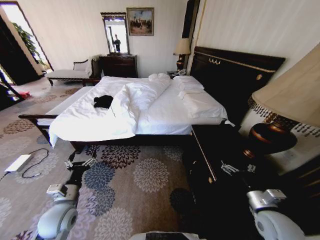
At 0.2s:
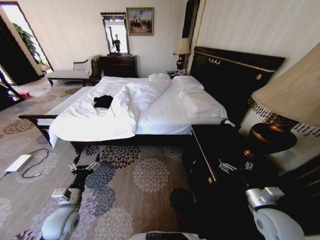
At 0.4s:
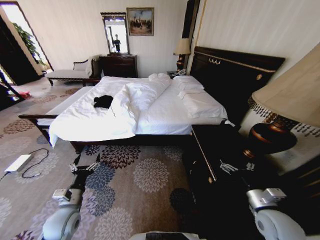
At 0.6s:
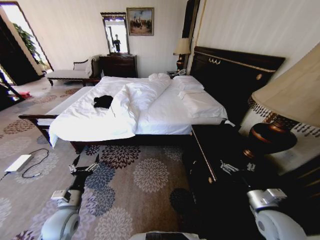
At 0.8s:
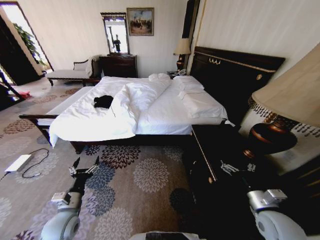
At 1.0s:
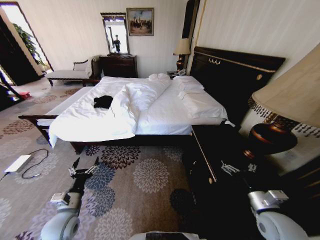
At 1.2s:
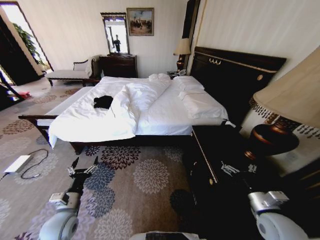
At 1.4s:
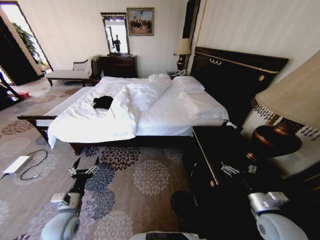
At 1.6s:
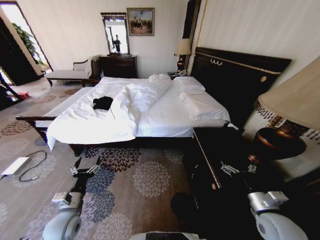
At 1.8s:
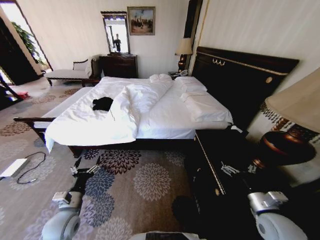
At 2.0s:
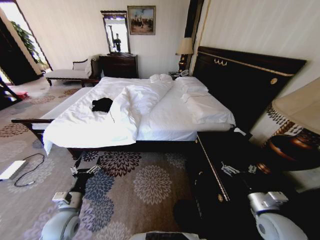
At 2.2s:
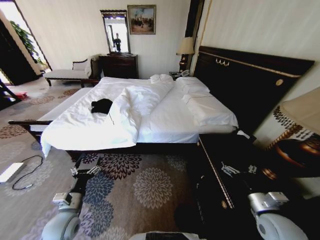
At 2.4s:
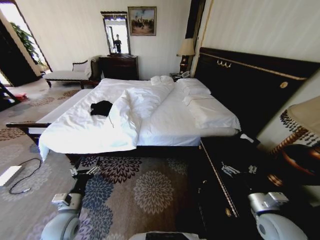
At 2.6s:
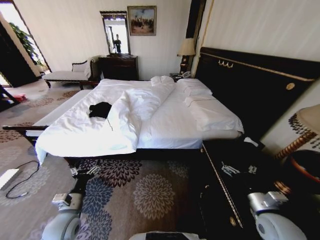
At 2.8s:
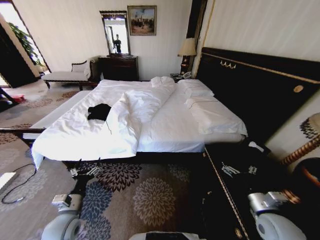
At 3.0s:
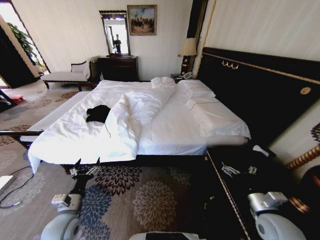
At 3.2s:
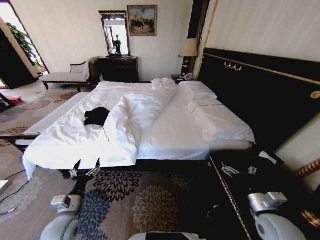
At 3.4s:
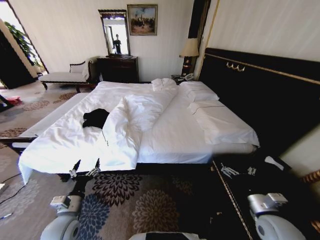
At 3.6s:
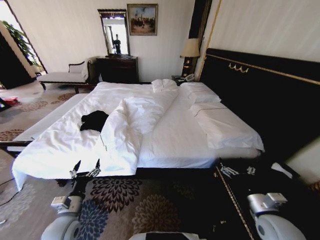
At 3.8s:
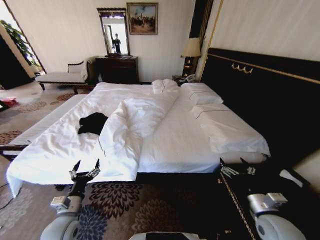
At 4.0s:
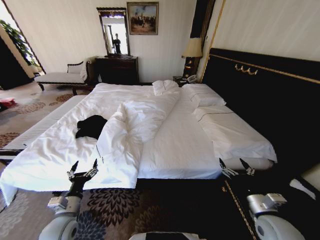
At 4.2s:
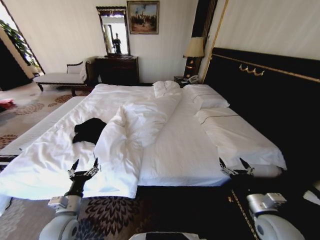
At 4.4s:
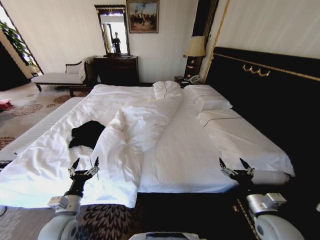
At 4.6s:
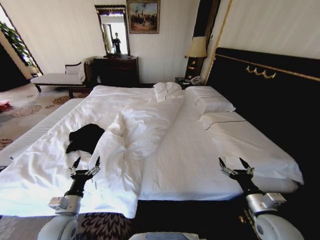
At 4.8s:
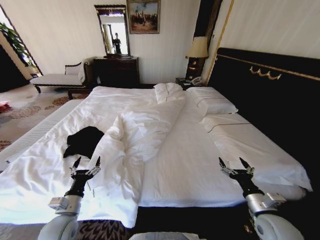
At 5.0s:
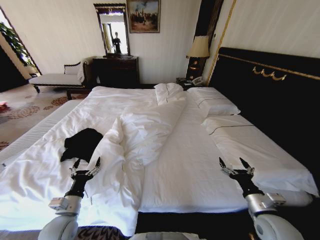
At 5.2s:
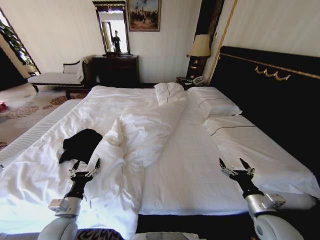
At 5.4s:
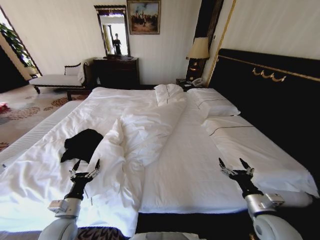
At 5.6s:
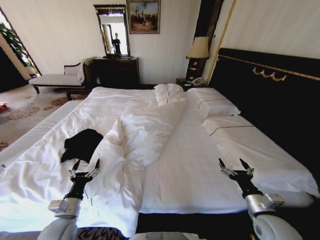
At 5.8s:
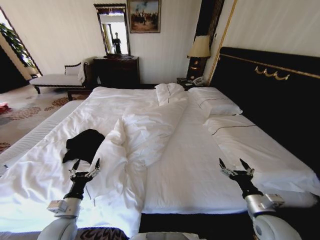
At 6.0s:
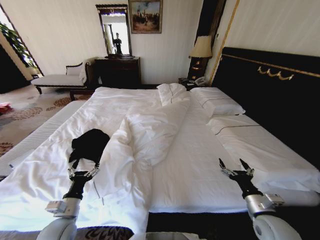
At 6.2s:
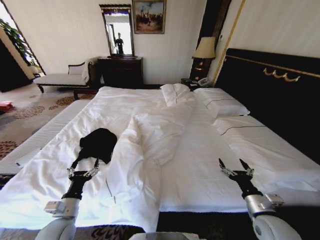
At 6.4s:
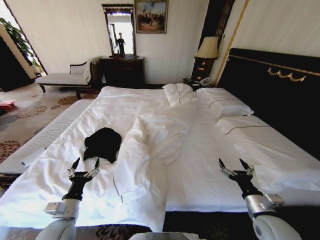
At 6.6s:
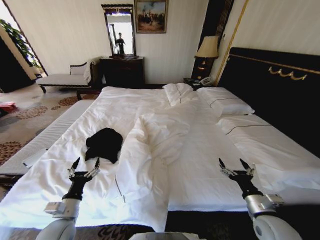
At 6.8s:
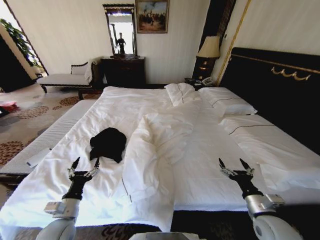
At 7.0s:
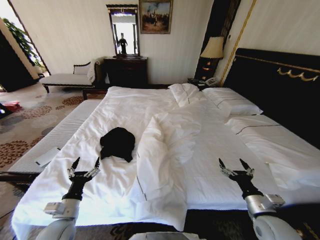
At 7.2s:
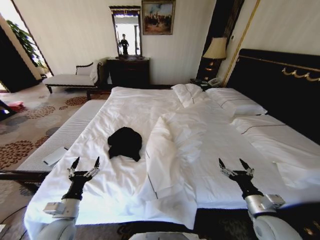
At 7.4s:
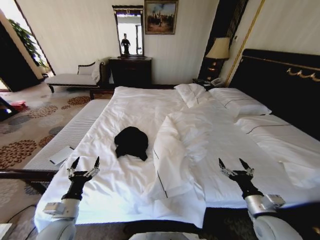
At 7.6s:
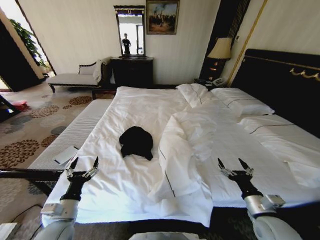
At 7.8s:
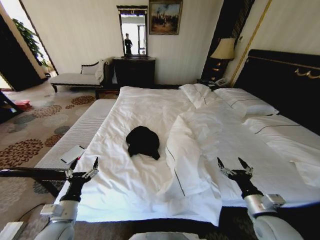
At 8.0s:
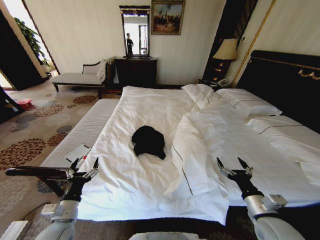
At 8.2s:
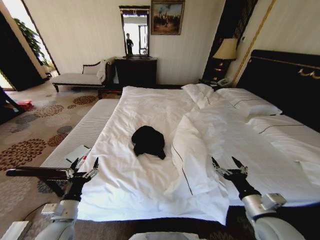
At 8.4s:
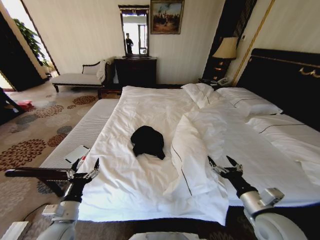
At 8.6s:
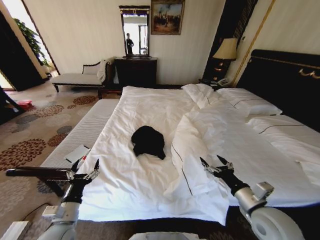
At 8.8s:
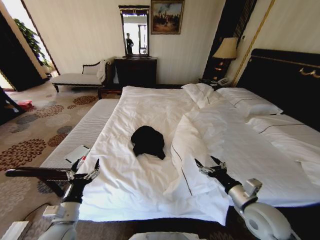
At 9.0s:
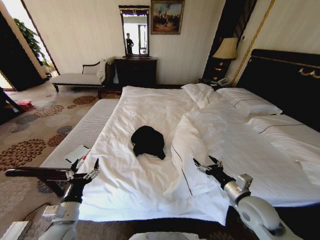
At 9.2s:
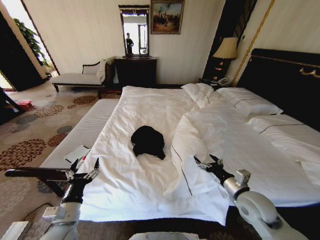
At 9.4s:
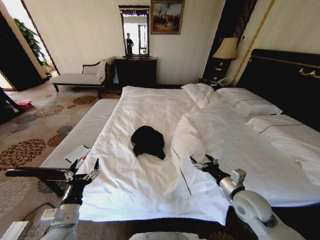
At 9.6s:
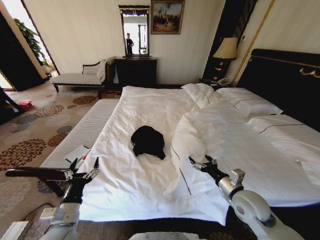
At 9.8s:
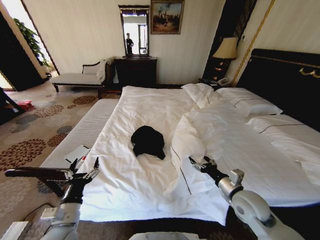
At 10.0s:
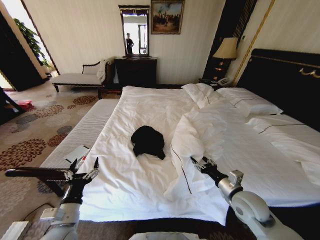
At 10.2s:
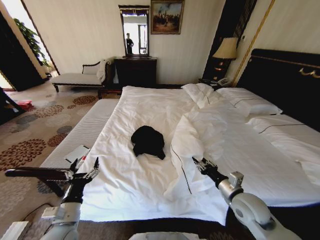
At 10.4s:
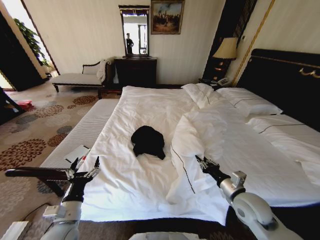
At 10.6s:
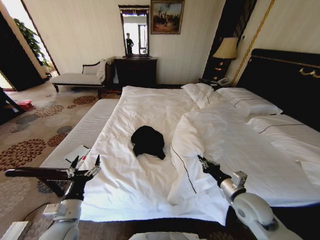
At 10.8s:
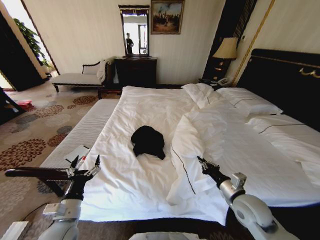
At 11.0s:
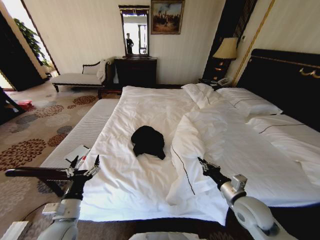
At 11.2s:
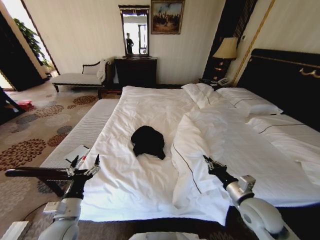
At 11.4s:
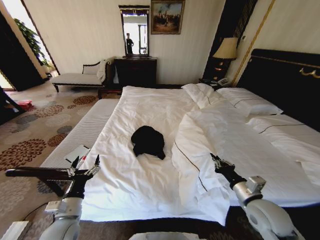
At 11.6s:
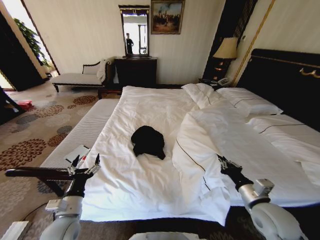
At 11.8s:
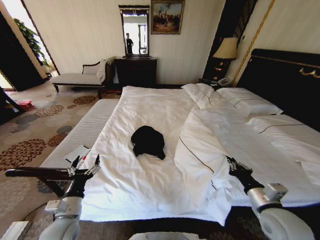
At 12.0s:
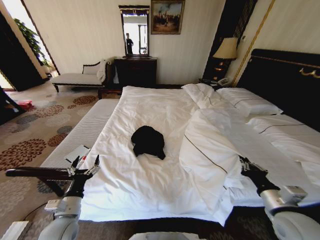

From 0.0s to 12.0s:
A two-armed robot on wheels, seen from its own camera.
Task of the whole recording: Fold the clothes on the bed.
From 7.6s to 9.0s: The right gripper travels forward by approximately 5 cm.
From 9.0s to 10.4s: The right gripper closes its fingers.
From 10.4s to 12.0s: The right gripper heads to the right and backward, covering some 10 cm.

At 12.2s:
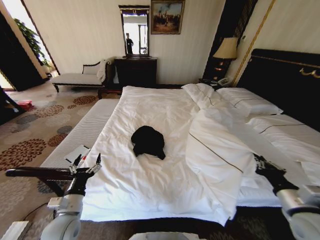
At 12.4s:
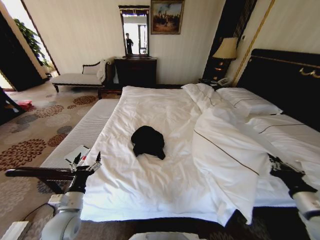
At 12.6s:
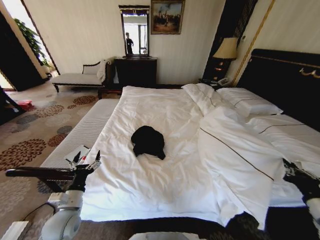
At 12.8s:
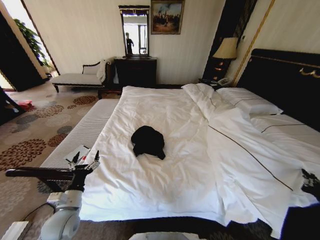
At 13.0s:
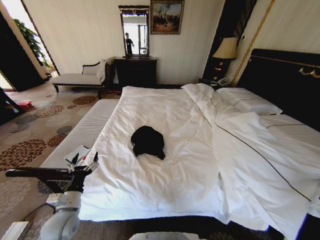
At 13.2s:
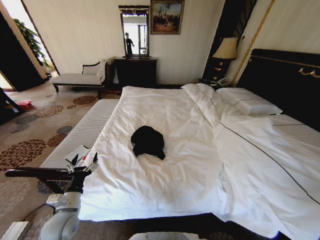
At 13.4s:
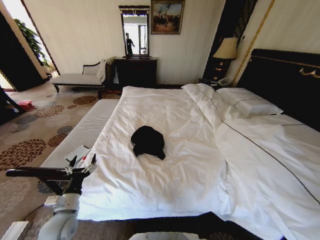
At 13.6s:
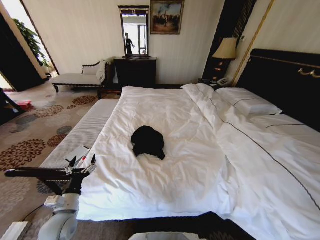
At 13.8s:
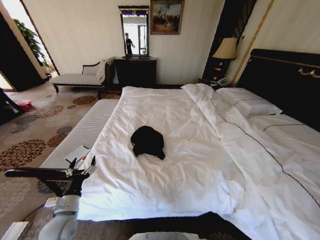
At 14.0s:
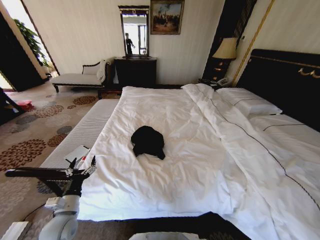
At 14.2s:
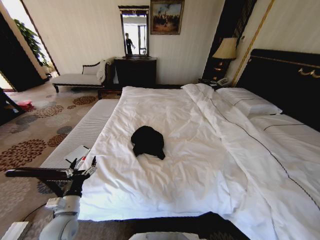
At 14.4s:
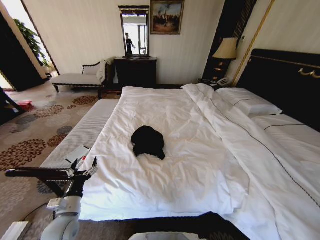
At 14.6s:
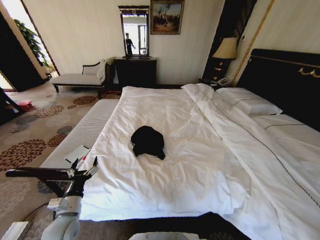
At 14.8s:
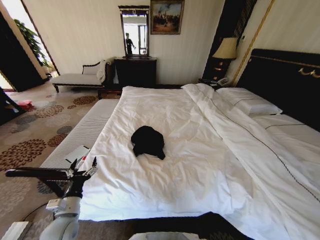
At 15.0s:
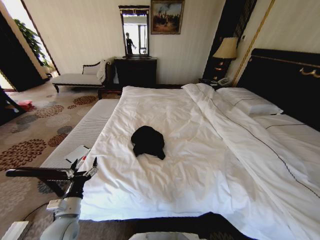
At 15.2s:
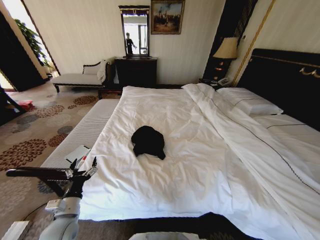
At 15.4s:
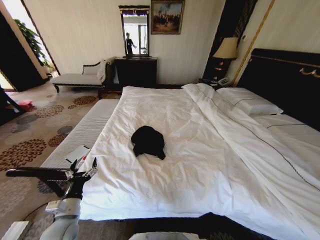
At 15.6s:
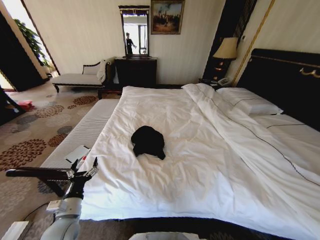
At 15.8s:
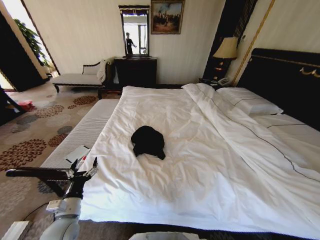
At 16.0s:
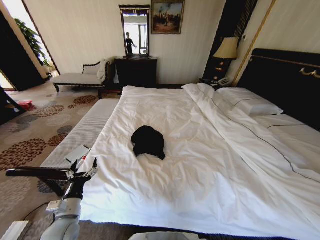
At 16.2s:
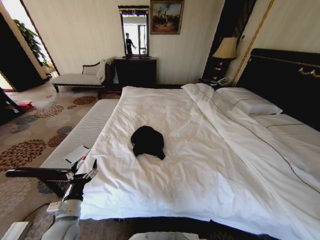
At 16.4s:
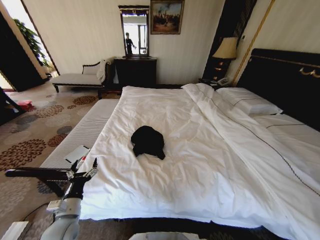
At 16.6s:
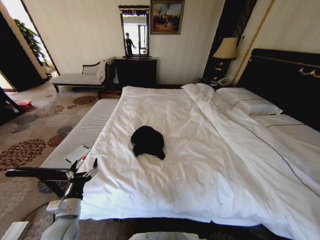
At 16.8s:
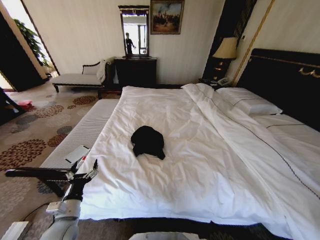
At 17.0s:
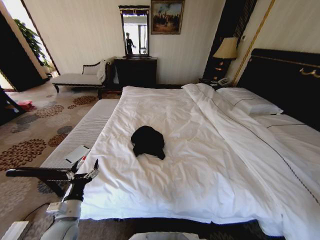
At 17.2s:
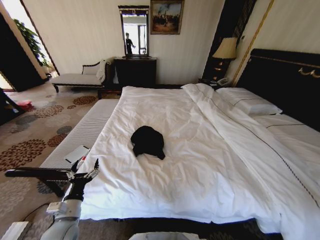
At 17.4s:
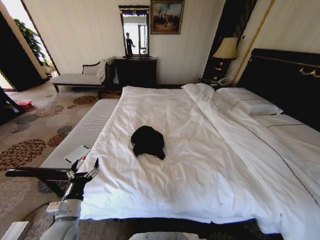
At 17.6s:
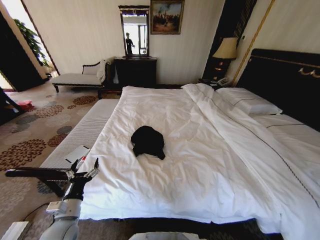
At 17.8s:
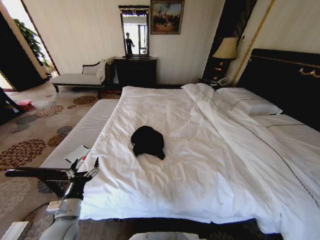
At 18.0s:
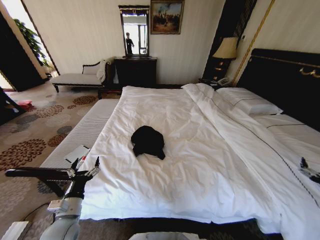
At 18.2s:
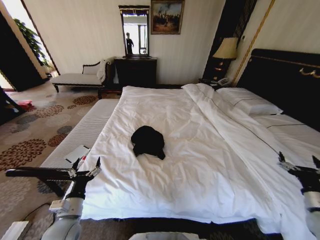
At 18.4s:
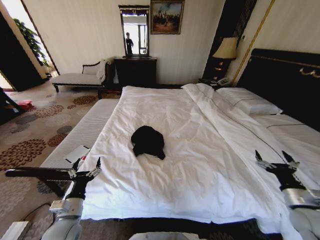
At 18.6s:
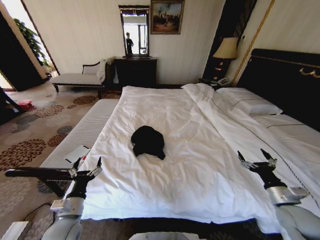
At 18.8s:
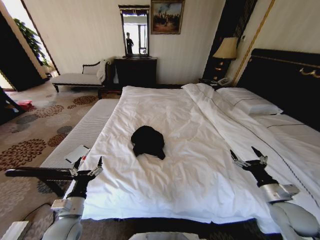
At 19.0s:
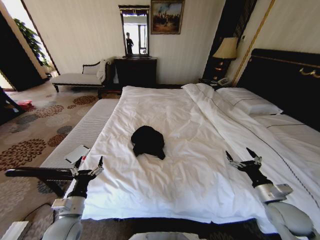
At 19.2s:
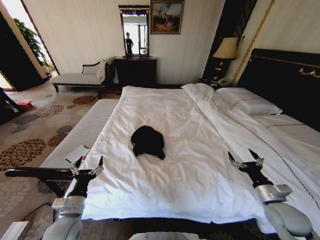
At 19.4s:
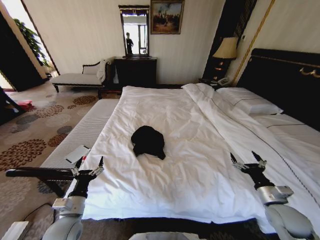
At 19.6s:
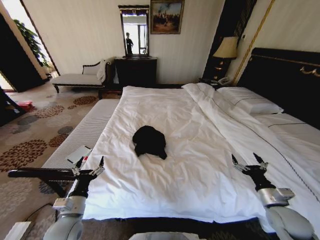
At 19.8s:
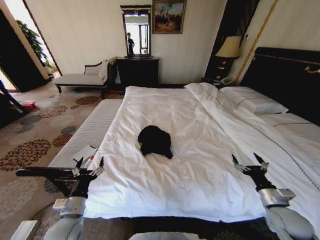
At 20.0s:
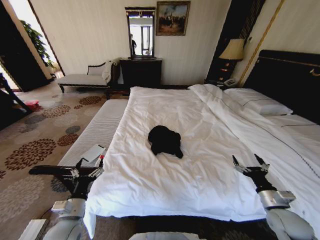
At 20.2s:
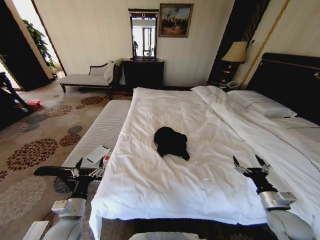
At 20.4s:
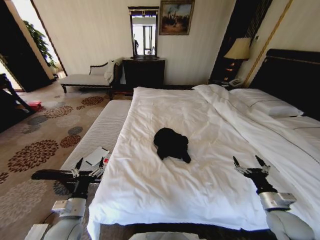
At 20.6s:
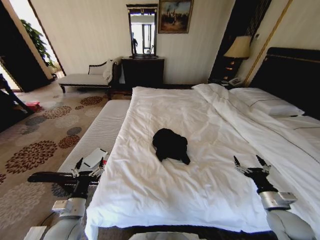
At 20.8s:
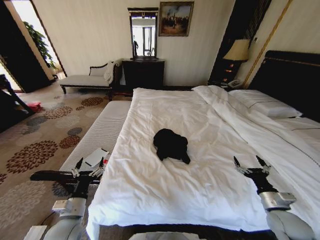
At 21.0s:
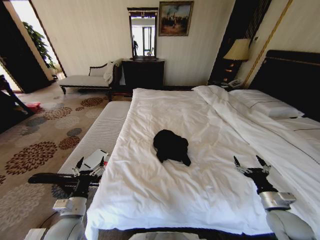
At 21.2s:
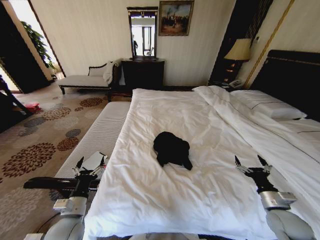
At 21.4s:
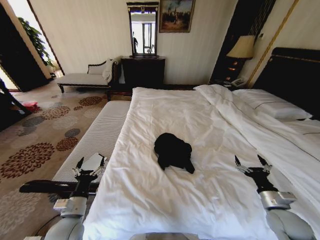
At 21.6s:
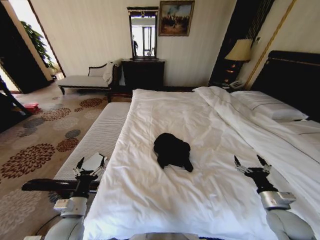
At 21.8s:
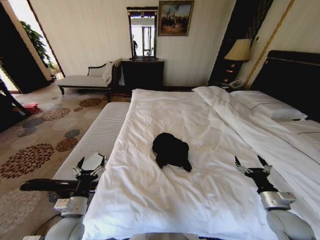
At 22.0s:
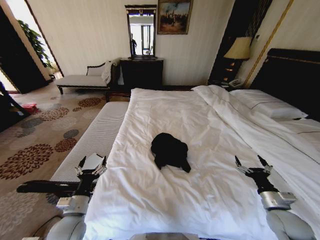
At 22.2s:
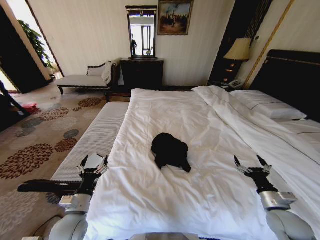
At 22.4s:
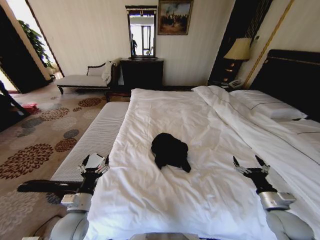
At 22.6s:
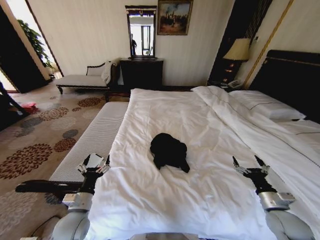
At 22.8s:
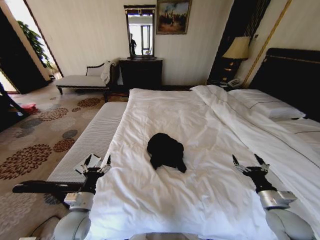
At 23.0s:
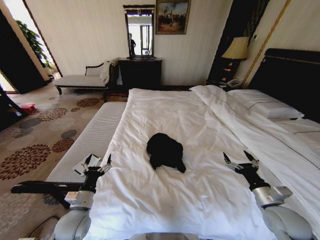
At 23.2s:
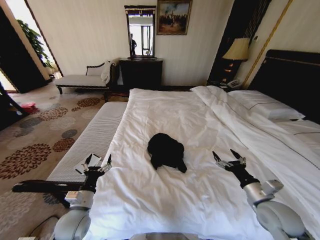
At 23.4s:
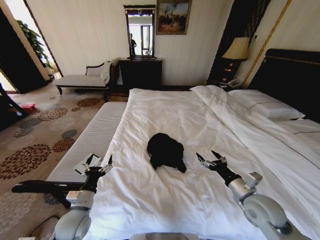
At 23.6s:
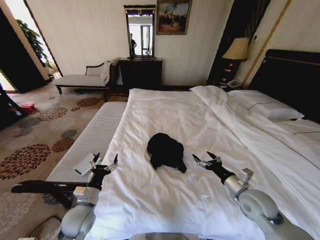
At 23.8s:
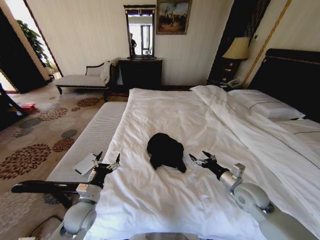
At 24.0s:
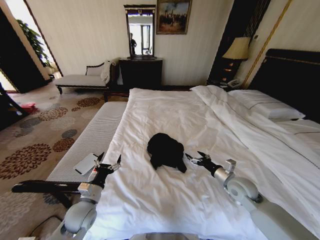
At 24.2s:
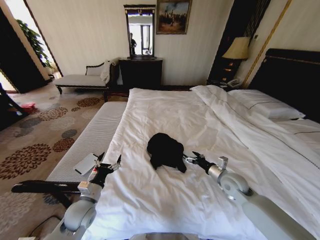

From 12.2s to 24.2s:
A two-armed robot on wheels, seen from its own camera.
Task of the whole recording: Fold the clothes on the bed.
From 12.2s to 13.8s: The right gripper moves to the right, backward and downward, approximately 30 cm.
From 13.8s to 15.2s: The right gripper goes some 15 cm to the right and downward.
From 16.6s to 18.2s: The right gripper travels to the left, forward and upward by some 30 cm, and opens up.
From 18.2s to 19.8s: The right gripper is displaced to the left by roughly 10 cm.
From 21.2s to 22.6s: The grippers make only small movements.
From 22.6s to 24.2s: The right gripper shifts roughly 20 cm forward and to the left.
